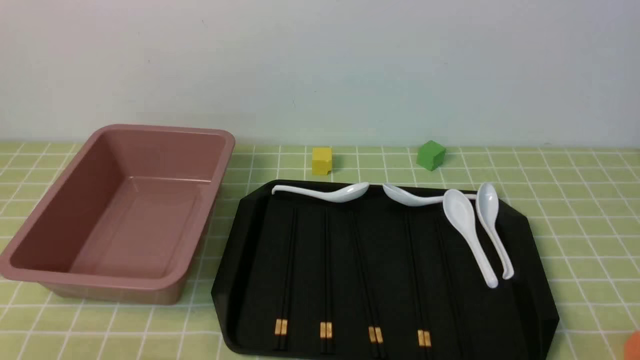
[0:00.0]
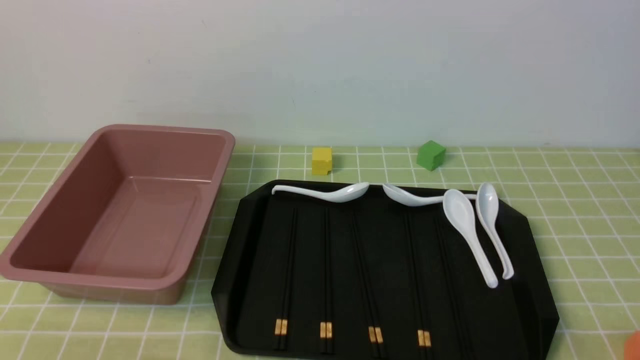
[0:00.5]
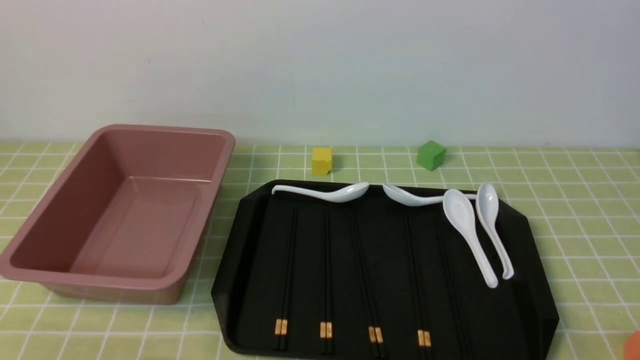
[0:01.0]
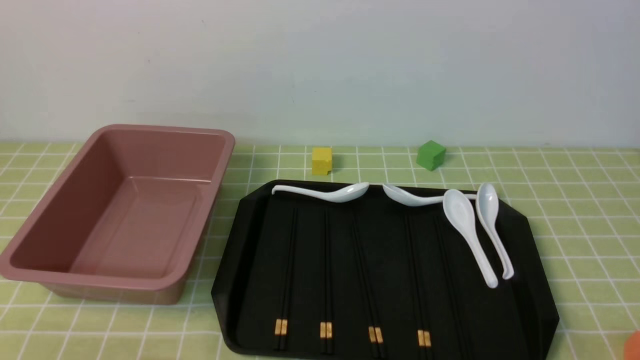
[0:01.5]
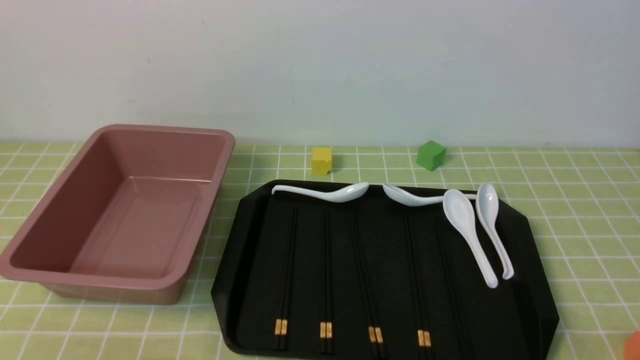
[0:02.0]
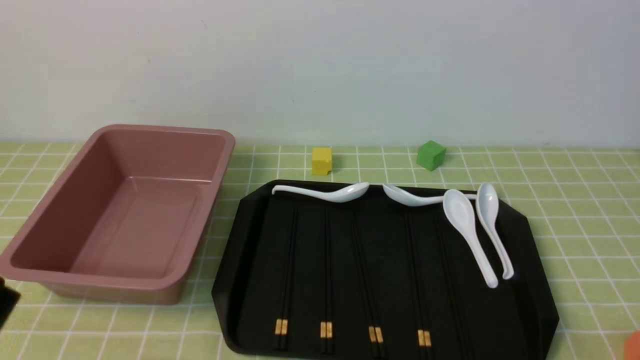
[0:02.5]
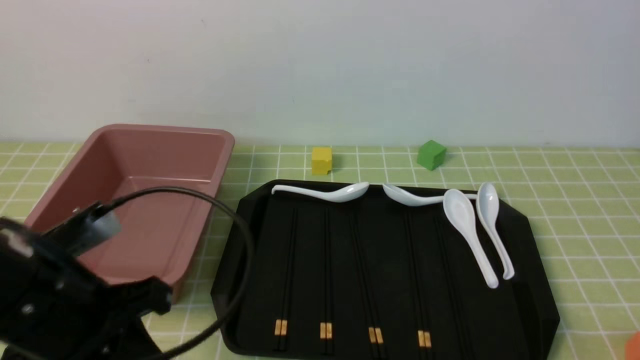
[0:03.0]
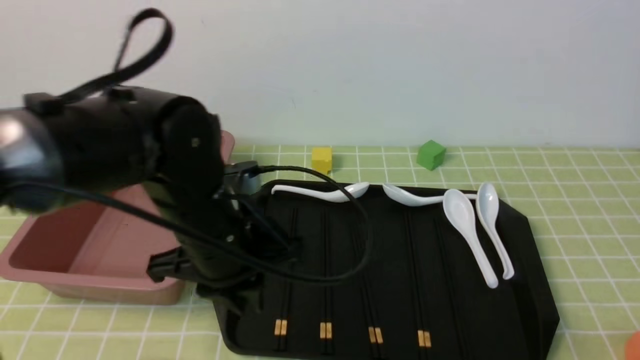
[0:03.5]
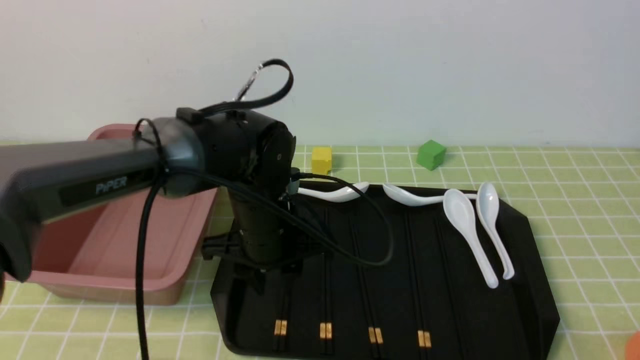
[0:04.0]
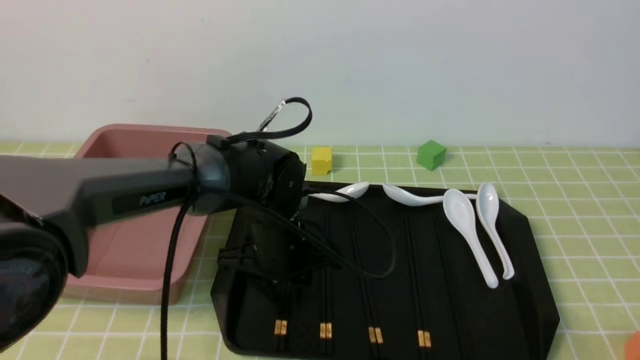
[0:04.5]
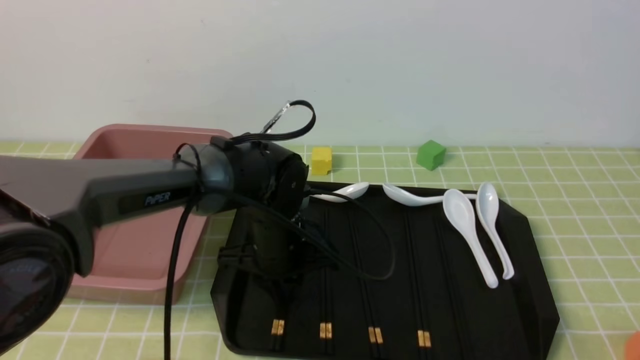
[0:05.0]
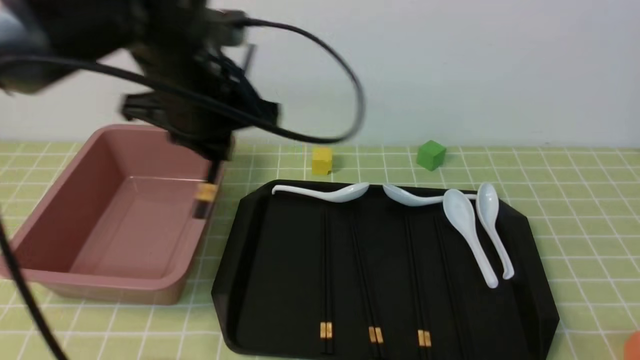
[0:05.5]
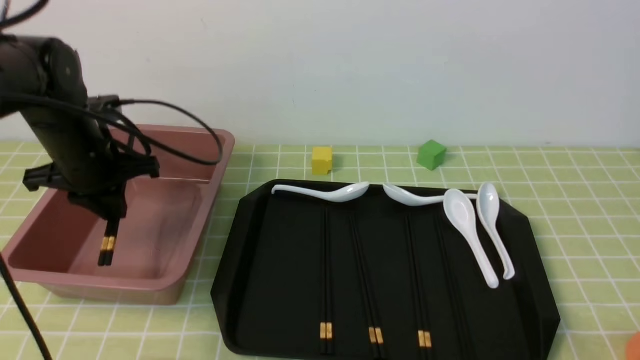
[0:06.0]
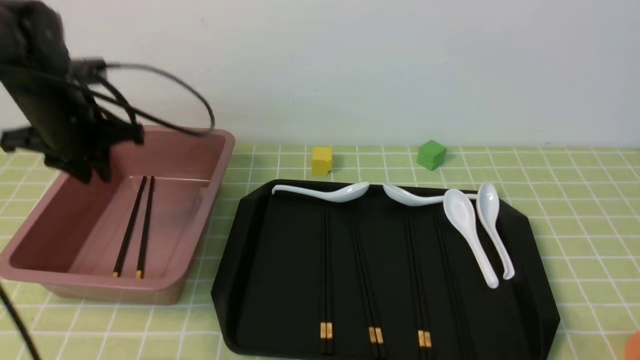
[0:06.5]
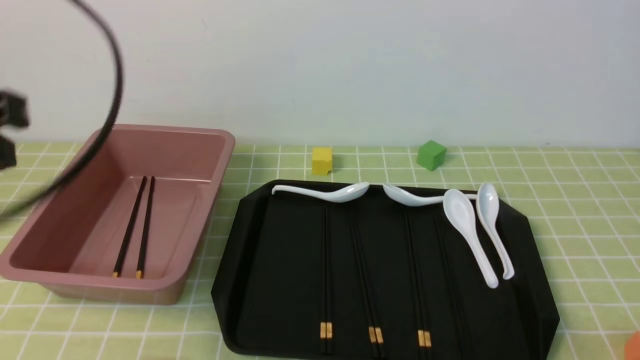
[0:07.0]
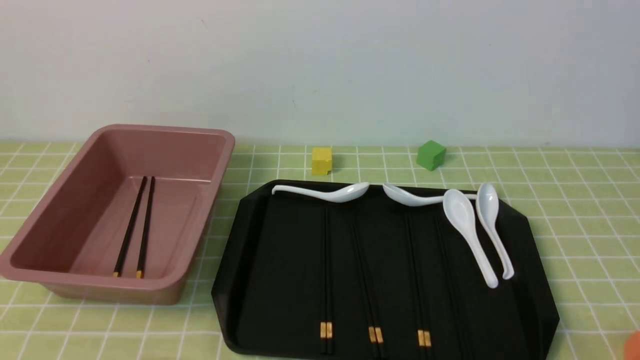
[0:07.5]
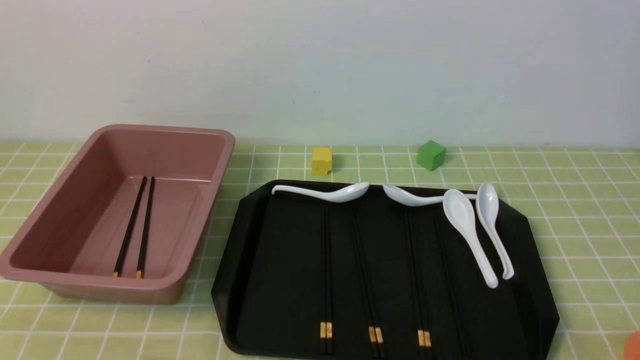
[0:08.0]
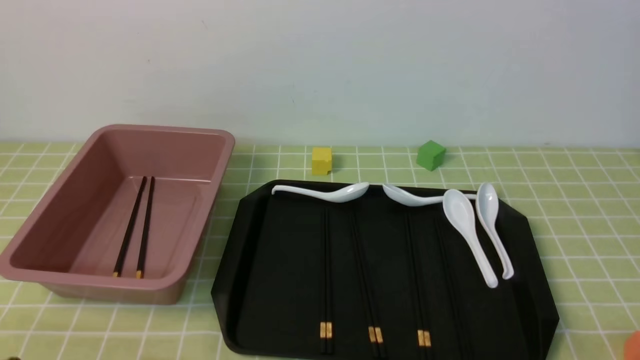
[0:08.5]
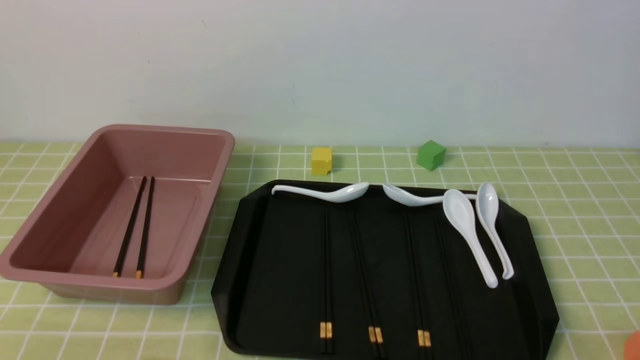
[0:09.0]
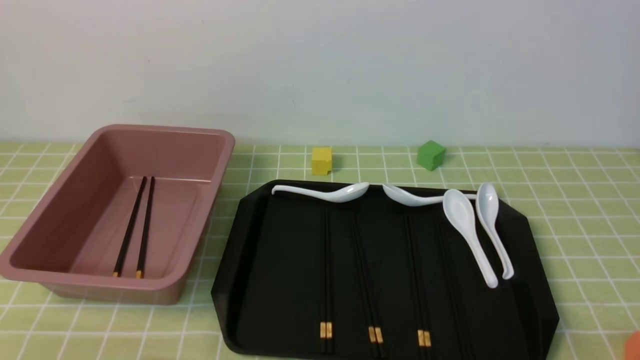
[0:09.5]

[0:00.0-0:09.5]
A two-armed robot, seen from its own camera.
Step, 0:00.0 to 0:05.0: use the left arm to grab a pair of chopsticks.
Step, 0:05.5 to 0:06.5: use the left arm to put the chopsticks into the lunch box.
0:02.0 to 0:04.0: The left gripper shifts some 35 cm forward and to the right, and closes, then reopens.
0:04.0 to 0:05.5: The left gripper moves upward and to the left, roughly 15 cm, and closes.
0:05.5 to 0:07.5: The left gripper goes approximately 30 cm backward, and closes up.
